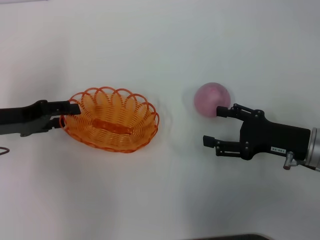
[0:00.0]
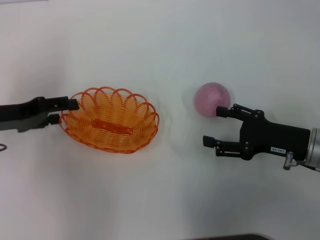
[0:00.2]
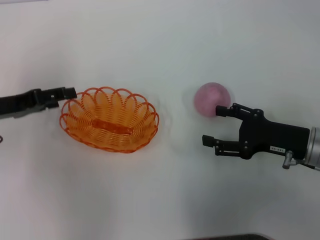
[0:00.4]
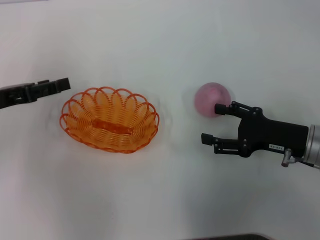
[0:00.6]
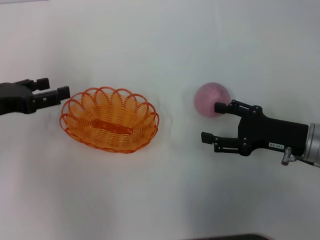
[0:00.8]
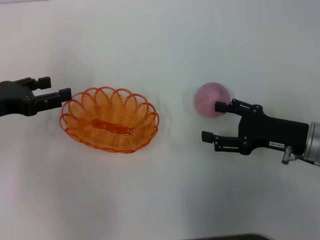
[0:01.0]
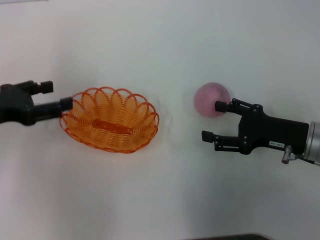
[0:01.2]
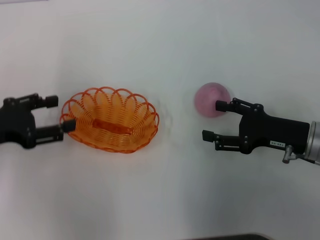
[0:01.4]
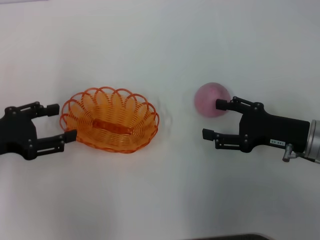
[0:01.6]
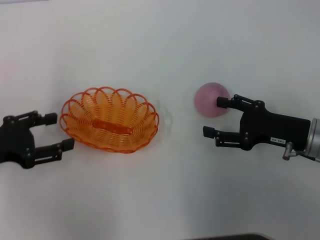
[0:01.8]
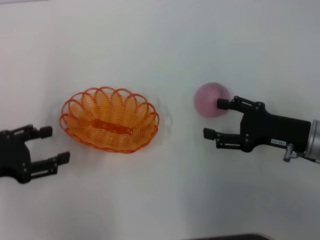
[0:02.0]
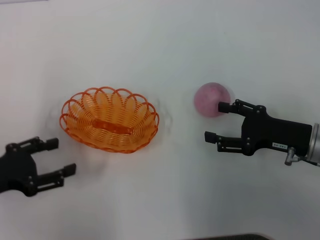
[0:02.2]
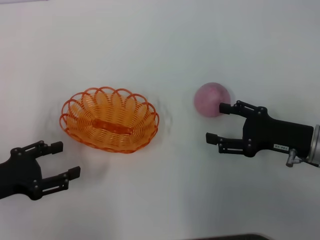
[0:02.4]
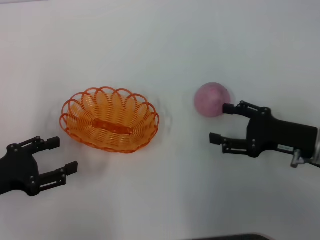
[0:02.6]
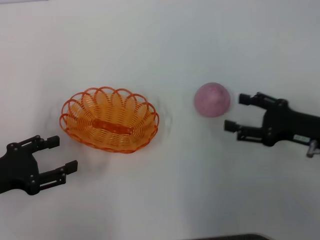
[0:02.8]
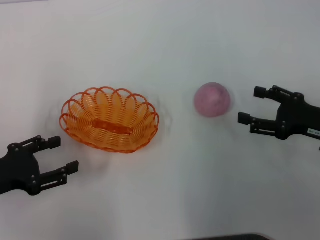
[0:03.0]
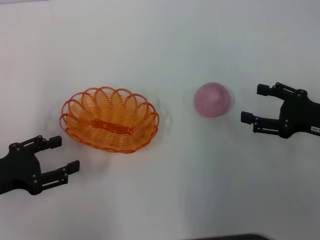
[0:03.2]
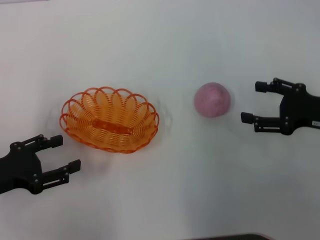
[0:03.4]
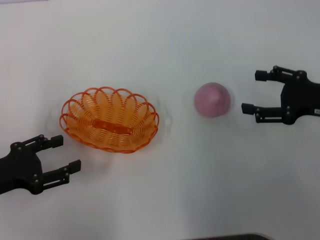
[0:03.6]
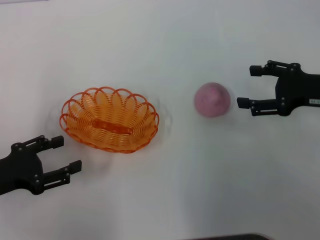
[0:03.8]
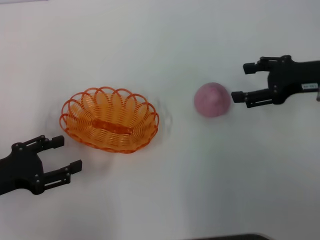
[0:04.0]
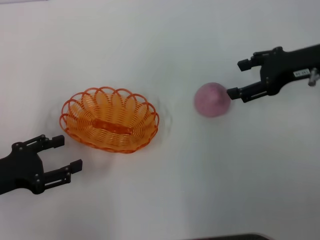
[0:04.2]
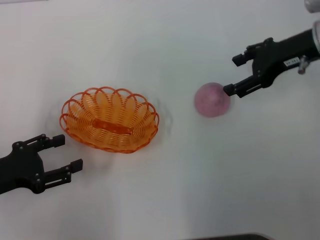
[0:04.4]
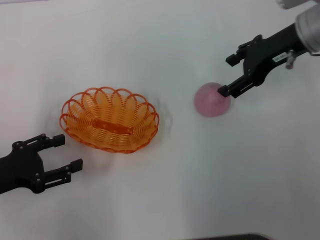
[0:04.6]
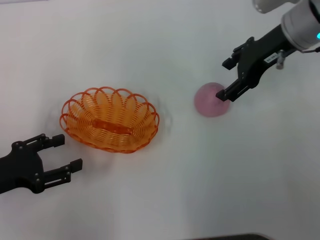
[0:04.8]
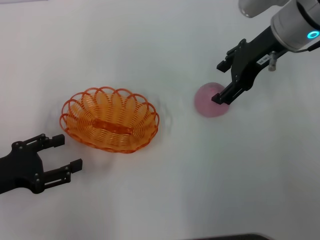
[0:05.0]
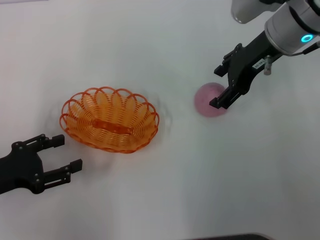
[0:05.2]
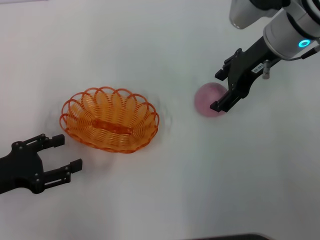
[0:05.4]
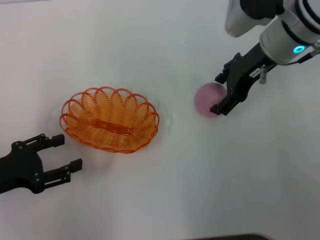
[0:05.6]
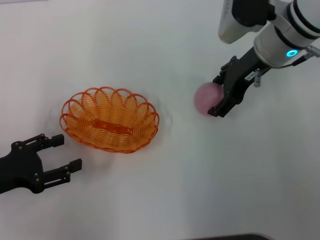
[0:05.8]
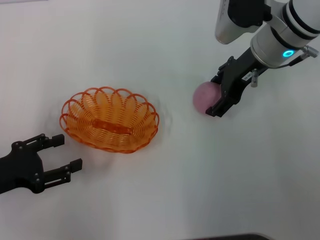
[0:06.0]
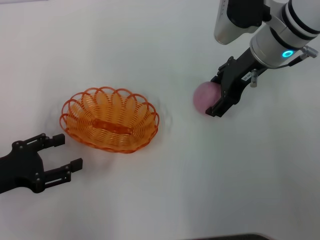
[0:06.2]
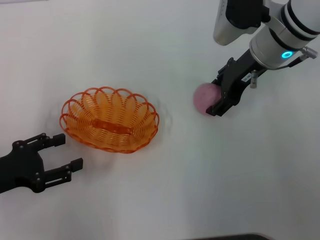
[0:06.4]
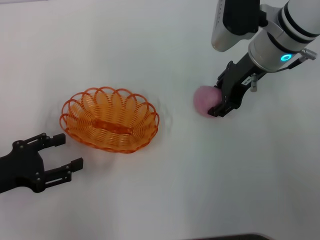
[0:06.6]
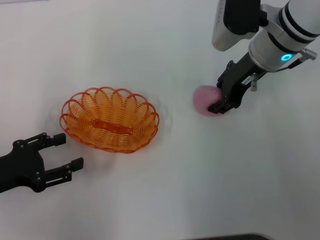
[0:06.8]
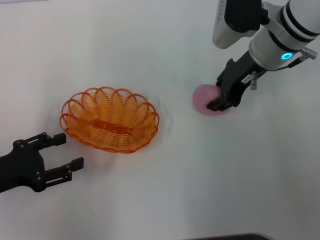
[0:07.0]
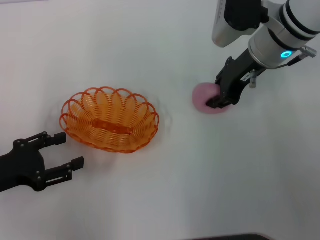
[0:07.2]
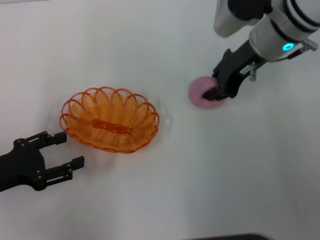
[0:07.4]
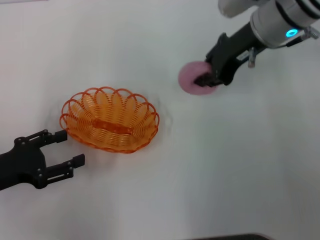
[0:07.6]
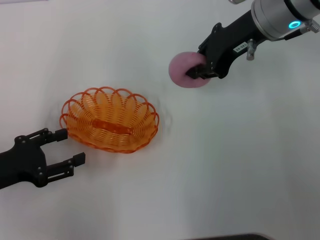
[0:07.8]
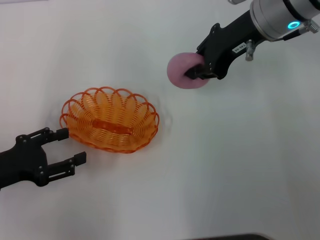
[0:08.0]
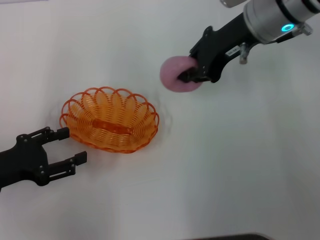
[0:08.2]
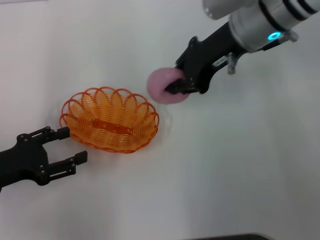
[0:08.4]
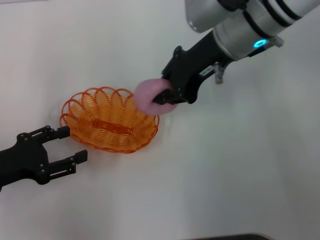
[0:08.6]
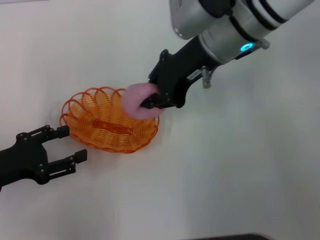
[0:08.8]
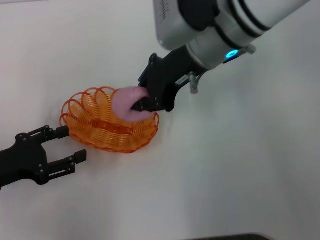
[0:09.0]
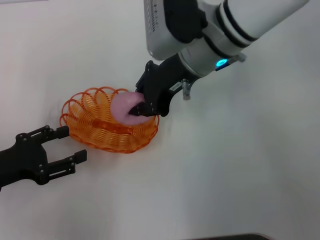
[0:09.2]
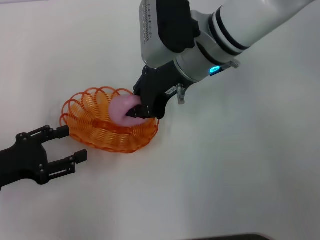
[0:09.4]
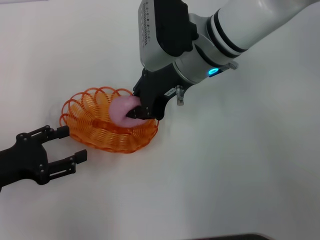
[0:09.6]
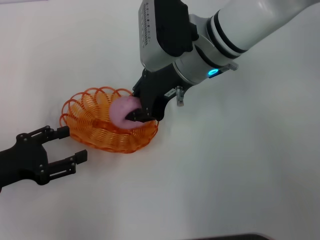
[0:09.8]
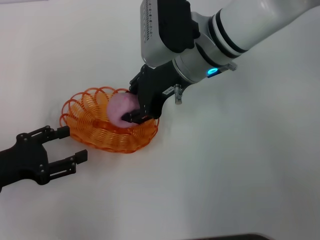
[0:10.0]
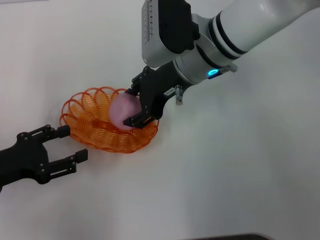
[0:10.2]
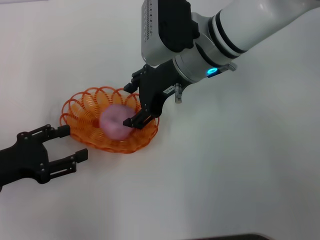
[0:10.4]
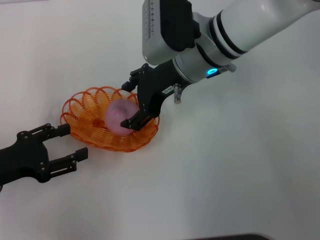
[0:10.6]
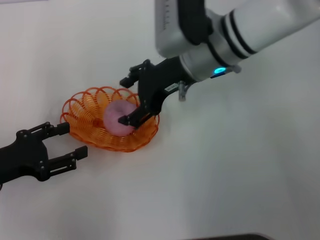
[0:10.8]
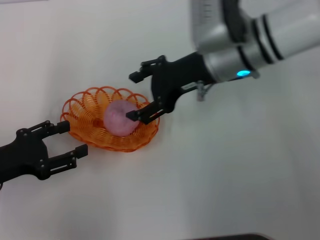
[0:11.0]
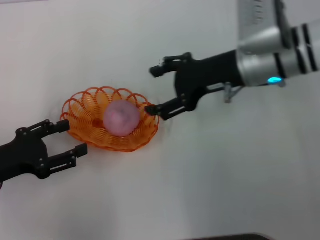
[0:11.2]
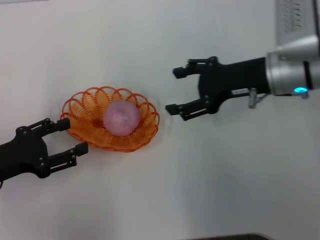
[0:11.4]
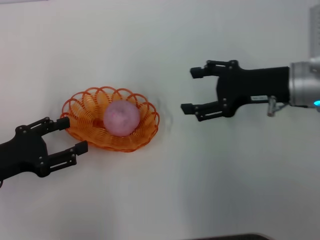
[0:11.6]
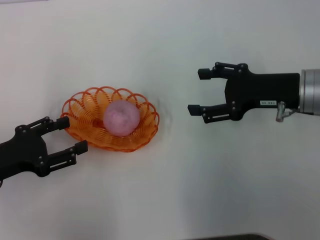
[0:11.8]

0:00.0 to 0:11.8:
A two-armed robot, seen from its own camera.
Step, 0:01.0 to 0:07.8: Pick up the peach with the right gripper.
Step, 0:08.0 to 0:10.6: Place the peach into the basket with the right gripper.
0:01.4 to 0:03.0: The left gripper goes about 5 cm backward; the right gripper shifts by about 5 cm.
0:03.0 to 0:04.4: The right gripper shifts about 20 cm forward, upward and to the left.
0:04.4 to 0:06.0: The right gripper heads to the left, covering approximately 10 cm.
0:06.0 to 0:07.4: The right gripper closes its fingers.
0:07.4 to 0:08.8: The right gripper travels to the left by approximately 5 cm.
0:08.8 to 0:10.4: The right gripper changes place by about 5 cm, and opens its fingers.
0:10.4 to 0:11.8: The right gripper is displaced to the right and backward by approximately 20 cm.

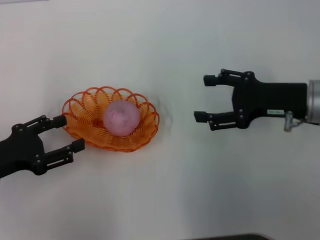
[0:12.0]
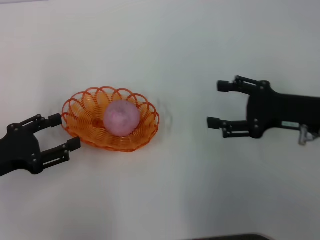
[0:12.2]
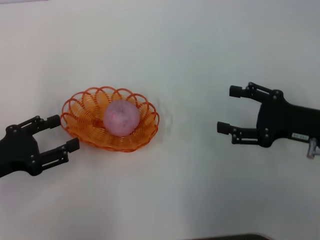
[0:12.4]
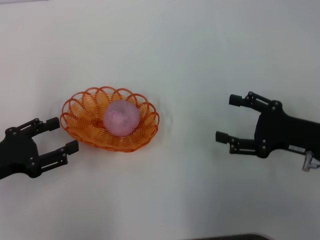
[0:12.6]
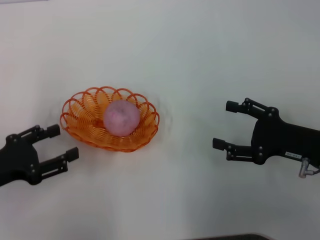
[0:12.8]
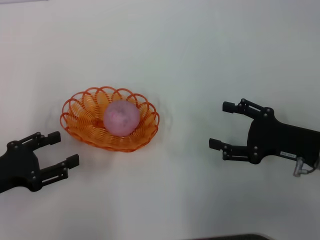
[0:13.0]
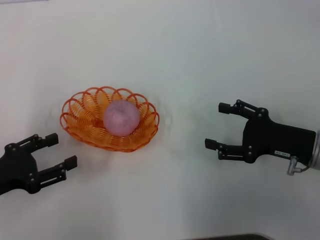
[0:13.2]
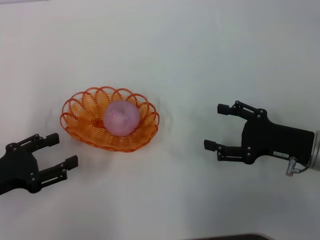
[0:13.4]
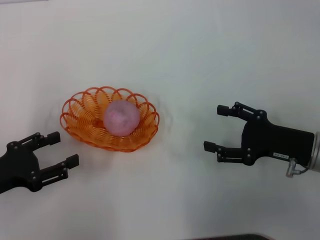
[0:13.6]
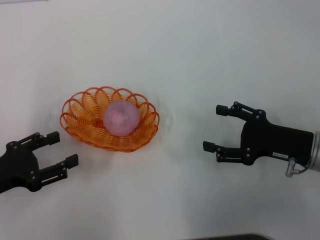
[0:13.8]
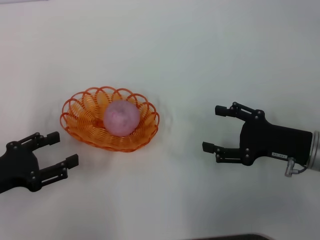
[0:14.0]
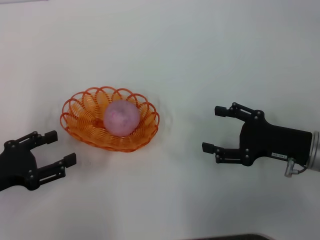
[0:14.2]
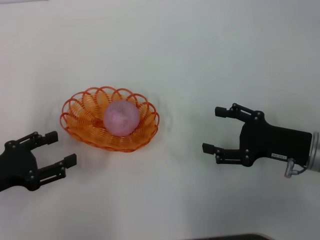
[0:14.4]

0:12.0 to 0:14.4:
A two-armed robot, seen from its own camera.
0:12.0 to 0:13.2: The right gripper moves downward and backward, approximately 10 cm.
0:13.2 to 0:14.4: Neither gripper changes place.

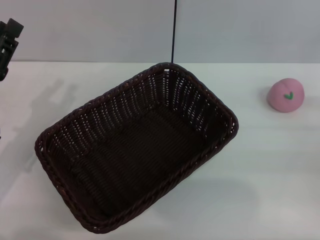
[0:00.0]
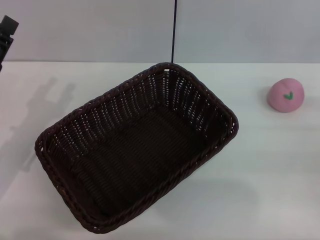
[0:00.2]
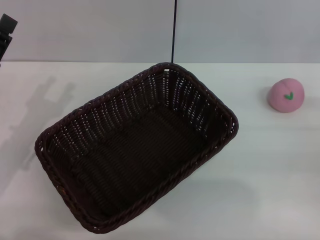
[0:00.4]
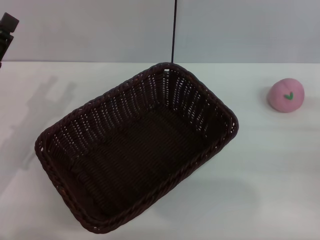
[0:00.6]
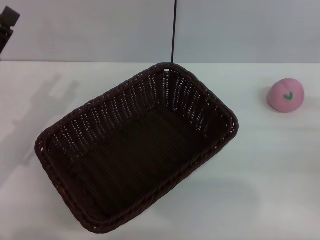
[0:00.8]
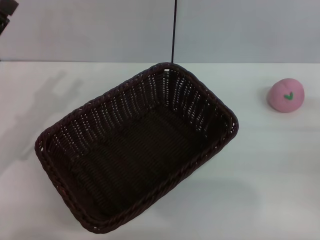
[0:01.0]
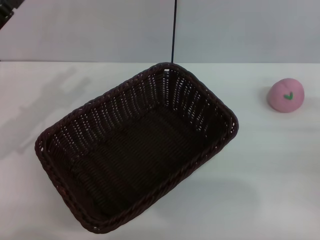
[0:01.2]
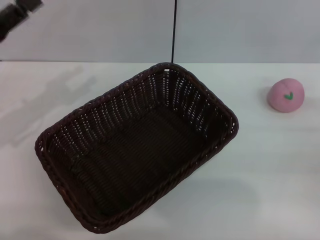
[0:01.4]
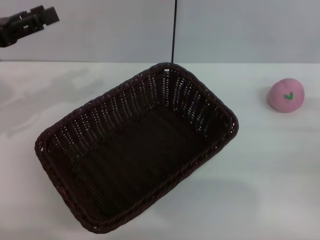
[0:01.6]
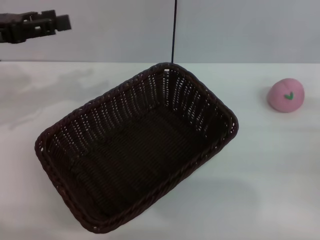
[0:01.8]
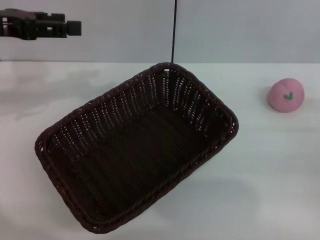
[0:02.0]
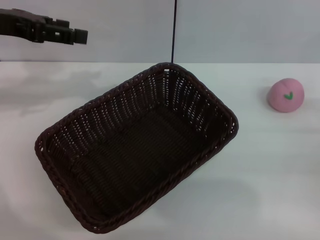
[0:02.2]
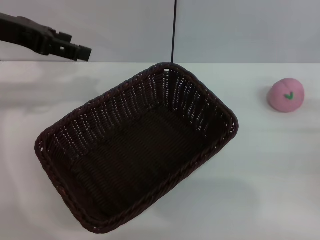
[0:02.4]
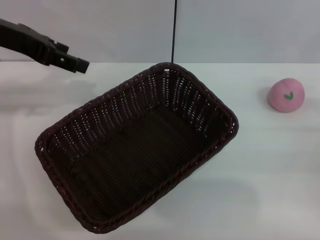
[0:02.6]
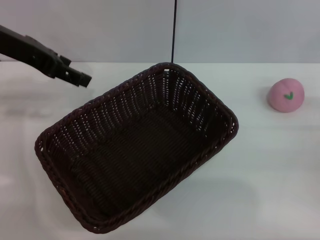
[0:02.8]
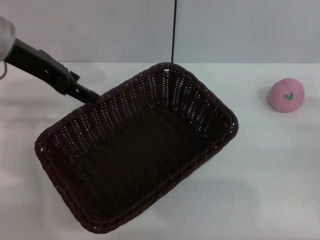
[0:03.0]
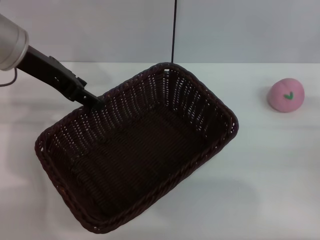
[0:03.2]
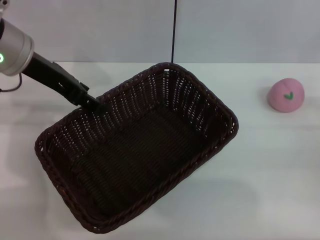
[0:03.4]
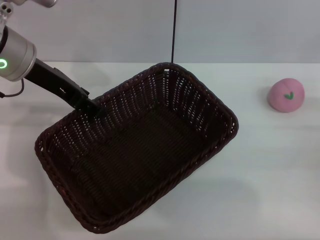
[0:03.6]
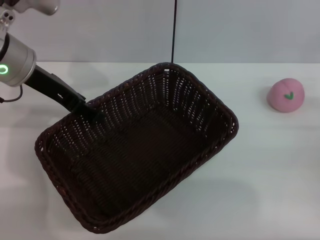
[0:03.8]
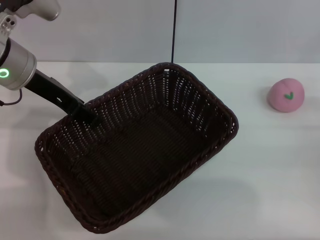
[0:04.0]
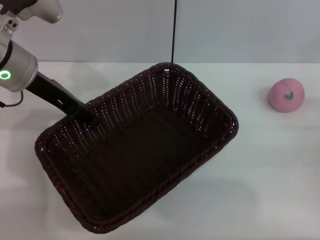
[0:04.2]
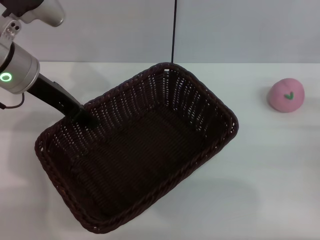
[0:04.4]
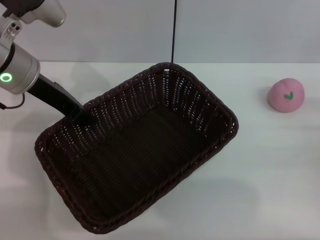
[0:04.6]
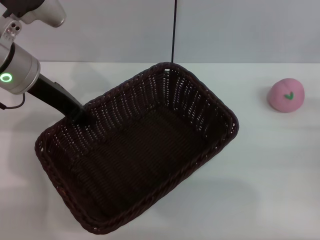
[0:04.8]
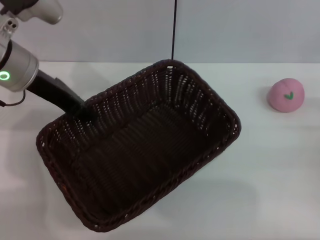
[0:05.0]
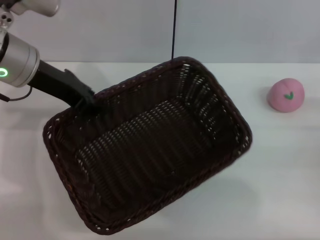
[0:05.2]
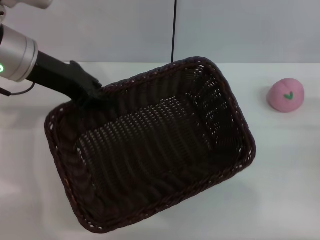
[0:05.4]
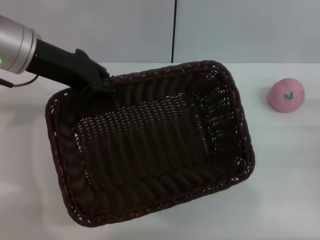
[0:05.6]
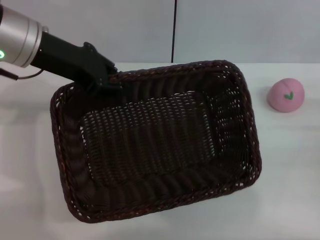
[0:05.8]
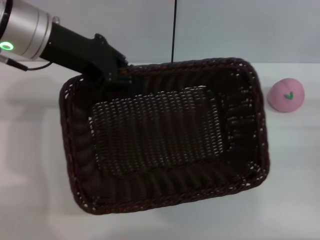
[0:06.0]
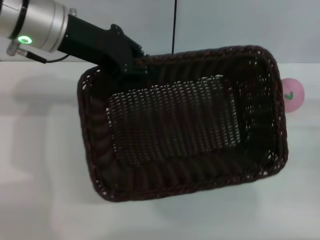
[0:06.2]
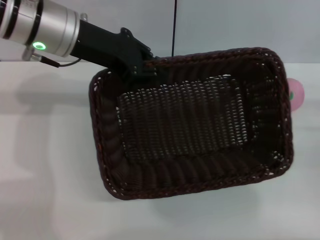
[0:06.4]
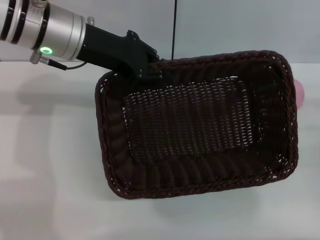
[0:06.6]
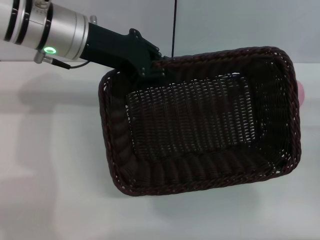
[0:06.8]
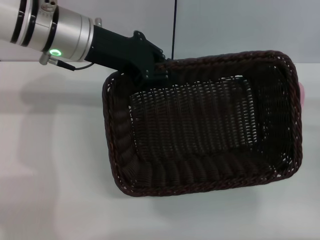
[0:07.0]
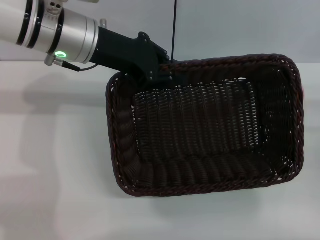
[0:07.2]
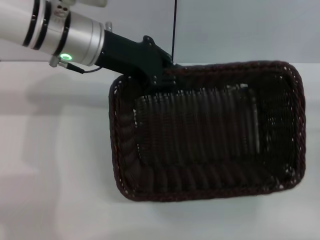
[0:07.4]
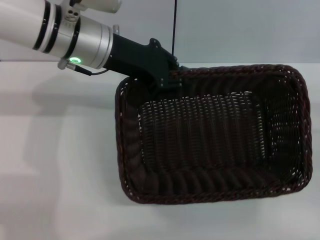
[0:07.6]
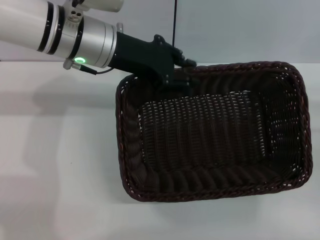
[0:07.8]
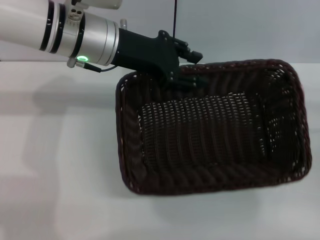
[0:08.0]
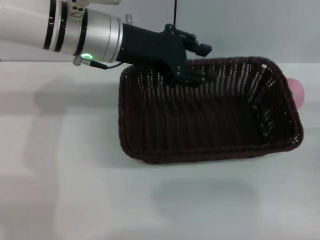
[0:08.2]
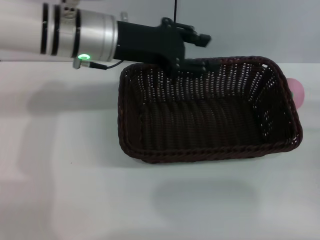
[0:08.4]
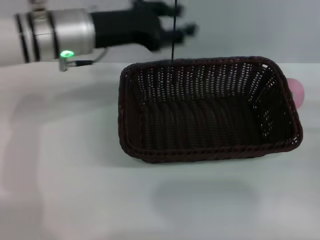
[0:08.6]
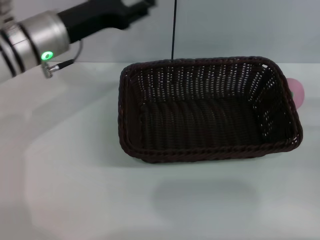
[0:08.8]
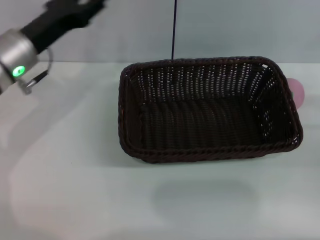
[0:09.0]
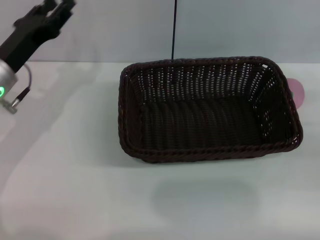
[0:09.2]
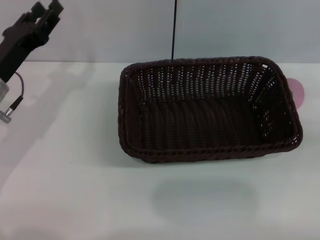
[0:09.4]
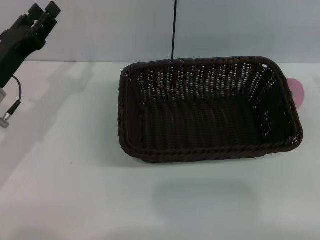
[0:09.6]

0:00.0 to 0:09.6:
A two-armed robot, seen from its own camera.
Step, 0:00.0 to 0:04.8: Pick up the dark basket with the left gripper.
0:00.0 to 0:01.6: The left gripper shifts approximately 10 cm upward and forward, and opens up.
0:01.6 to 0:03.2: The left gripper shifts approximately 15 cm to the right and upward.
0:03.2 to 0:04.8: The left gripper closes up.
0:04.8 to 0:06.4: The left gripper shifts by roughly 5 cm.
0:08.0 to 0:09.6: The right gripper shifts roughly 10 cm upward, while the left gripper heads to the left, downward and backward, covering some 20 cm.
